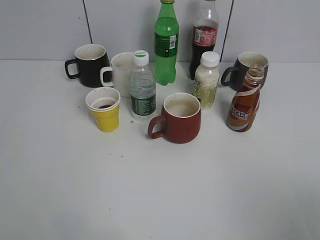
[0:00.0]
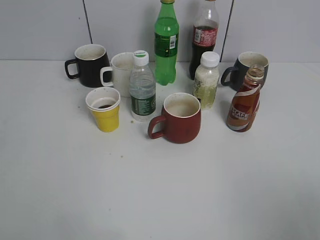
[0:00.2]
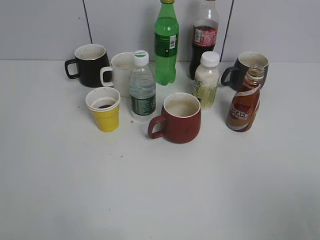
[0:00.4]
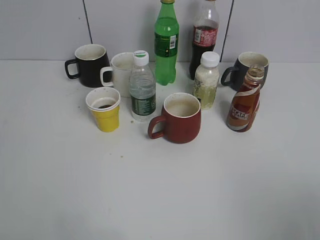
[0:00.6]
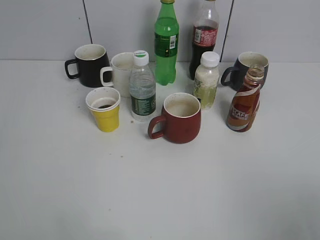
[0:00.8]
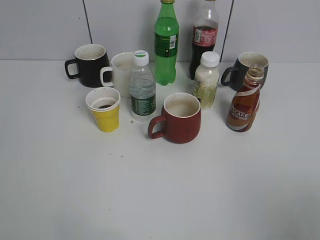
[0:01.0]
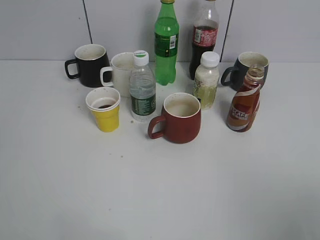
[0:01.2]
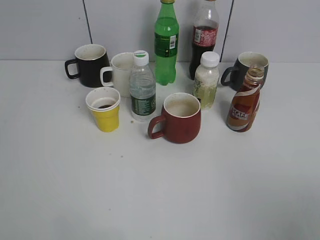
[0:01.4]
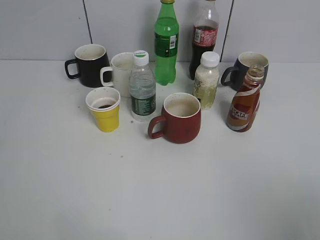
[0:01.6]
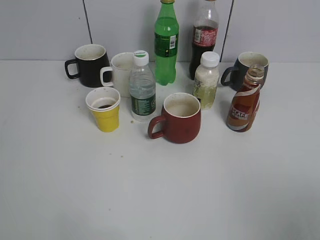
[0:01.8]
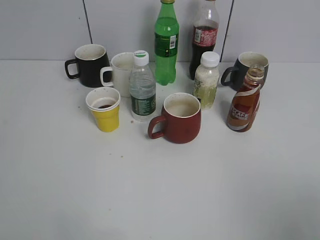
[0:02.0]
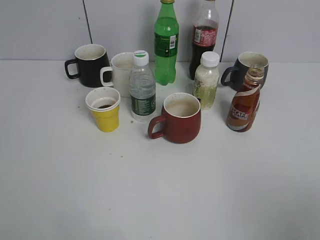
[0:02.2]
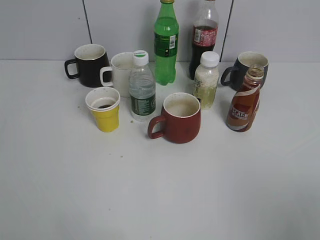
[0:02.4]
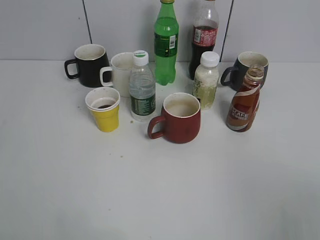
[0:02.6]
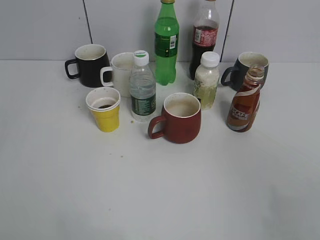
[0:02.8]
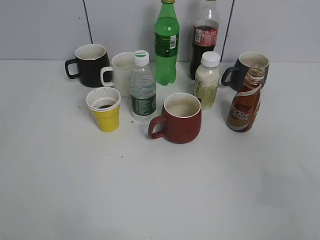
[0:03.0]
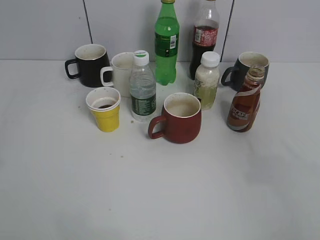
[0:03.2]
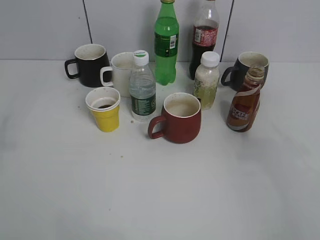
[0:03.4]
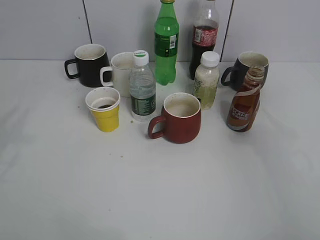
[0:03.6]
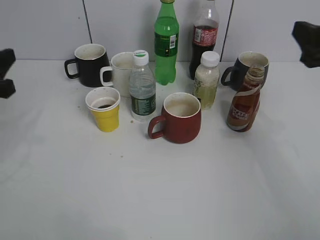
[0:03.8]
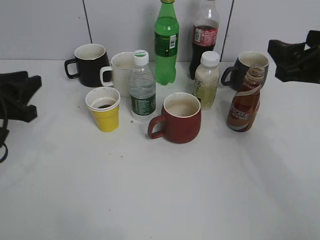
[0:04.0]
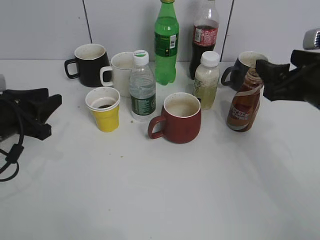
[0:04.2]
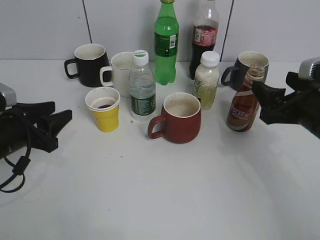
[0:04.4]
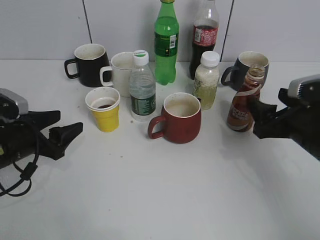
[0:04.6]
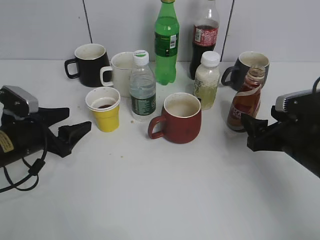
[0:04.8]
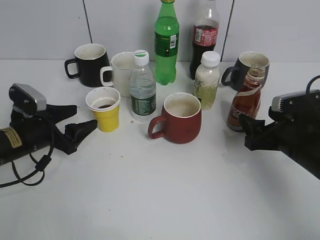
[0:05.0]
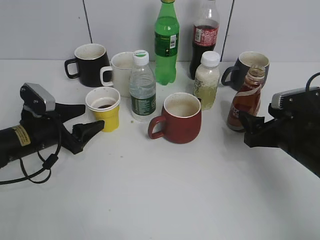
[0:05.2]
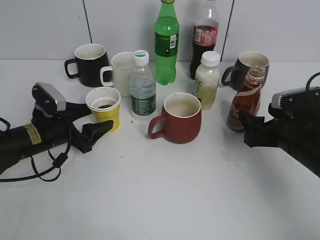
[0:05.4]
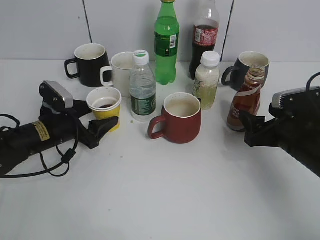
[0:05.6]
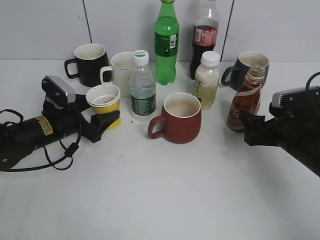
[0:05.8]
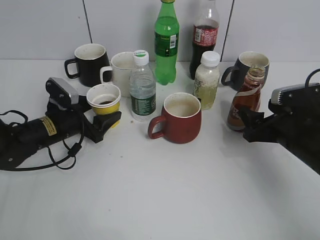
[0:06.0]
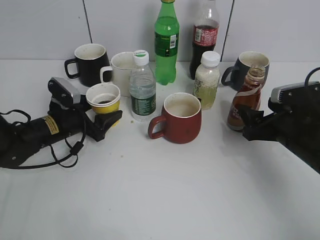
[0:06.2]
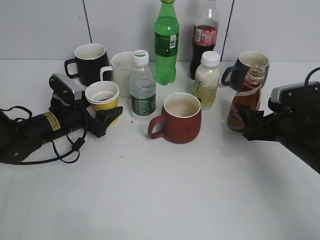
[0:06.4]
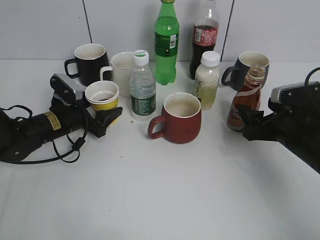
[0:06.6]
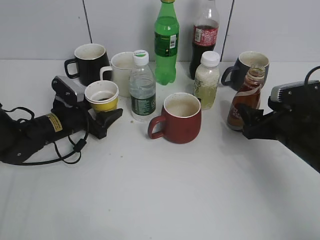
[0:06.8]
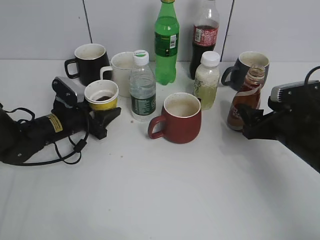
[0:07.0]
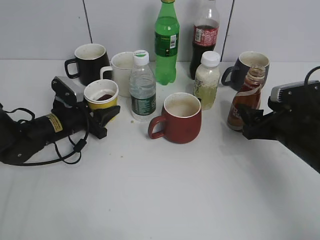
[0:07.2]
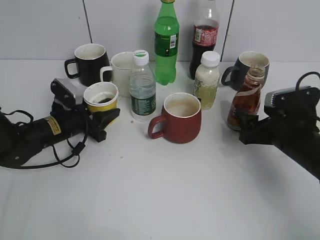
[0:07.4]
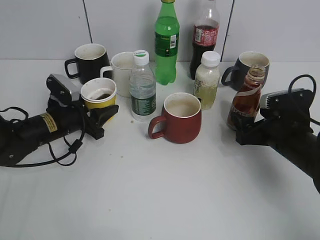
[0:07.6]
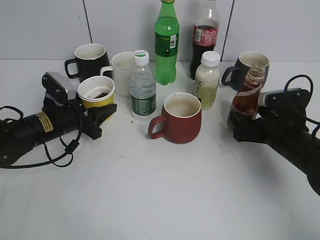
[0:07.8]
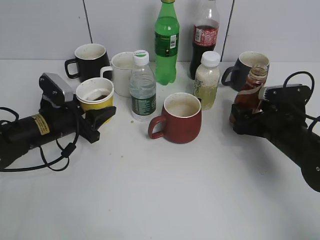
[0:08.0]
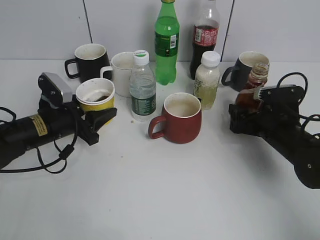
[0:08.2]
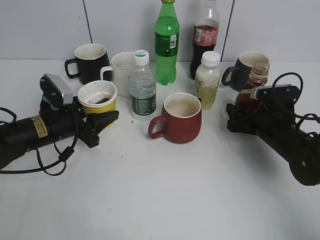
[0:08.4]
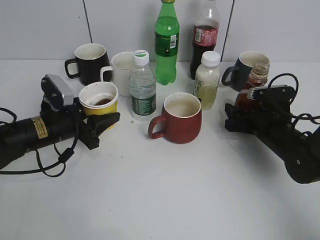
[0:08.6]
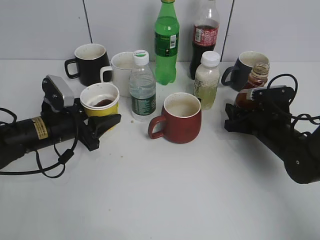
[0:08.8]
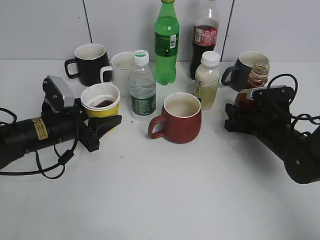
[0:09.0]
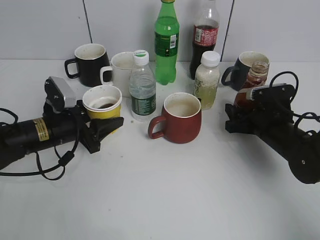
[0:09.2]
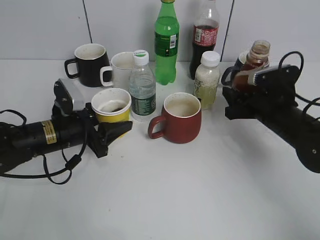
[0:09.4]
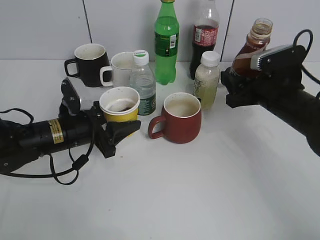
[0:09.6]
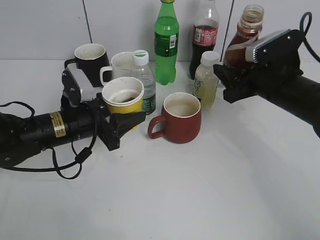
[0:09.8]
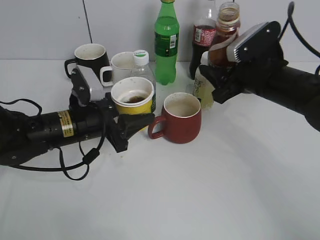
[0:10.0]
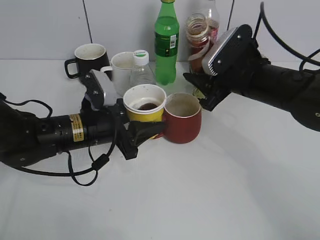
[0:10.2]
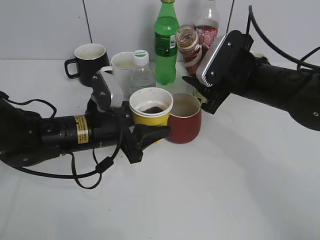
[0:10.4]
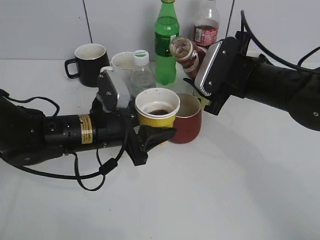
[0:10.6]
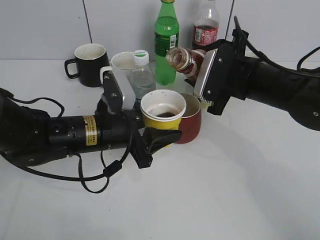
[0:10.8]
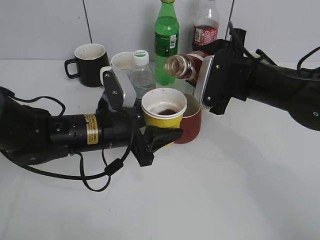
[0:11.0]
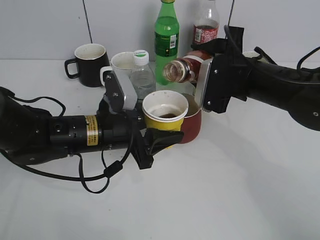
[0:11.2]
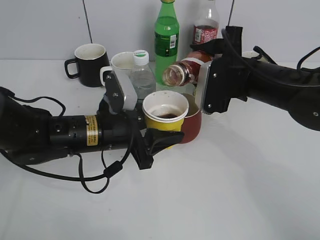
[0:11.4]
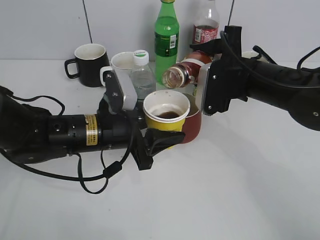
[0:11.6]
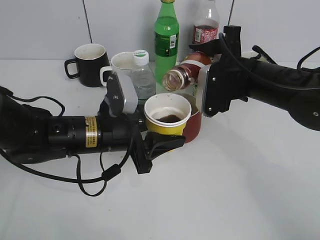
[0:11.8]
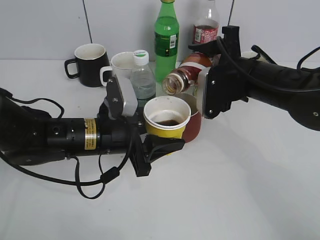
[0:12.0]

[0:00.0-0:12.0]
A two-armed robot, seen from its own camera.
Step, 2.2 to 7.0 s: Grasp the yellow paper cup with left gripper.
Step, 7.2 to 9.0 s: Grasp the bottle with coffee with right gripper.
1.6 to 3.0 s: The right gripper shifts some 10 cm forward.
3.0 to 4.4 s: The left gripper travels downward and forward by approximately 30 cm, and opens up. The right gripper moves forward and downward, roughly 25 cm.
4.4 to 6.0 s: The right gripper is displaced downward by some 5 cm, while the left gripper is displaced forward, downward and to the right by approximately 10 cm, and opens its fingers.
6.0 to 7.6 s: The left gripper closes up.
7.6 to 9.0 s: The right gripper shifts by about 5 cm, and closes its fingers.
9.0 to 10.4 s: The right gripper shifts roughly 15 cm upward and to the left; the left gripper moves to the right, roughly 10 cm.

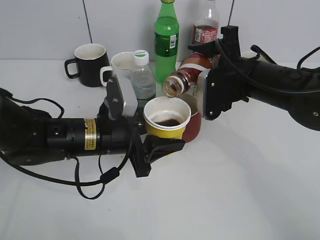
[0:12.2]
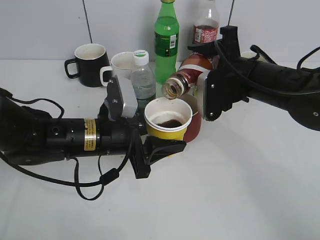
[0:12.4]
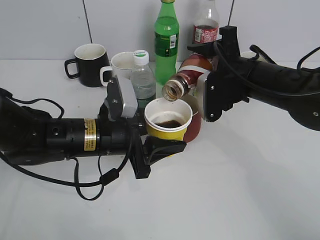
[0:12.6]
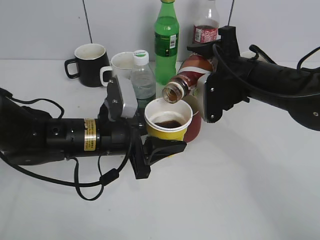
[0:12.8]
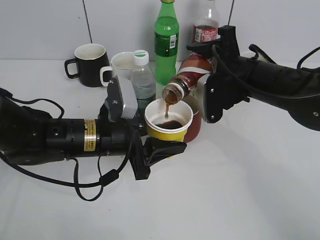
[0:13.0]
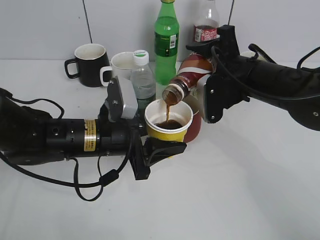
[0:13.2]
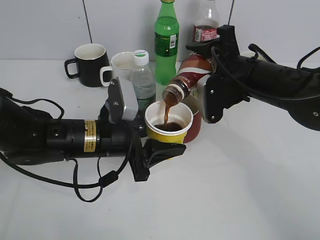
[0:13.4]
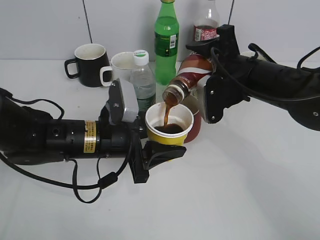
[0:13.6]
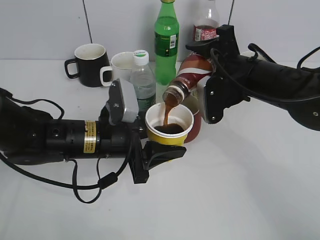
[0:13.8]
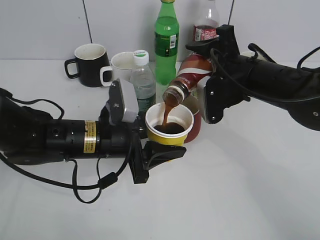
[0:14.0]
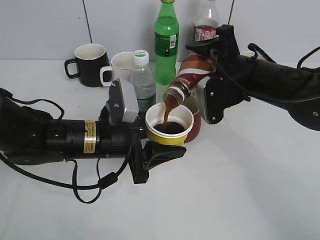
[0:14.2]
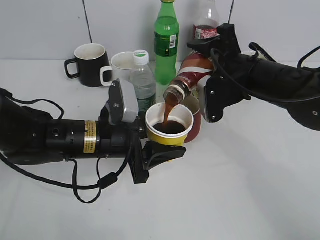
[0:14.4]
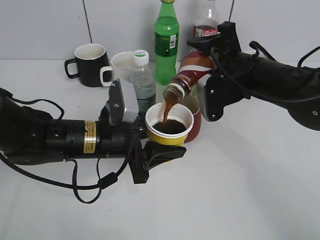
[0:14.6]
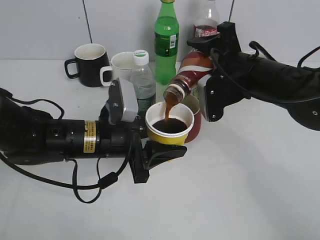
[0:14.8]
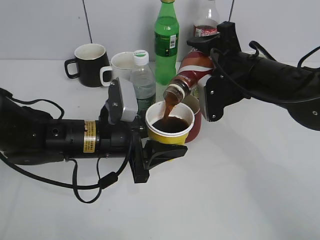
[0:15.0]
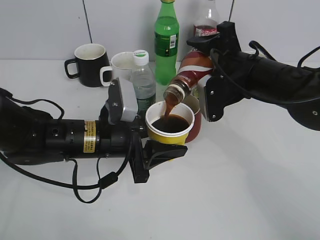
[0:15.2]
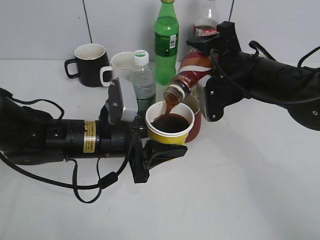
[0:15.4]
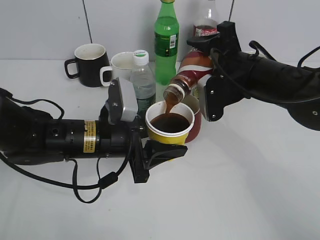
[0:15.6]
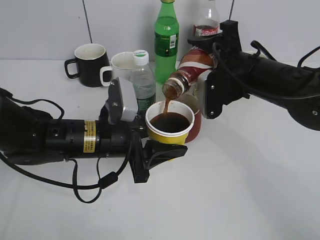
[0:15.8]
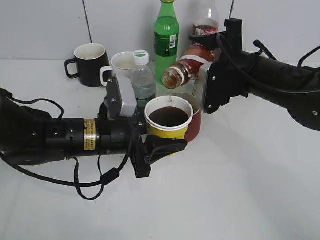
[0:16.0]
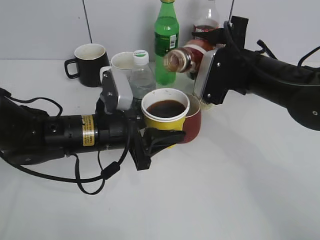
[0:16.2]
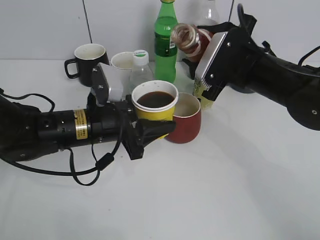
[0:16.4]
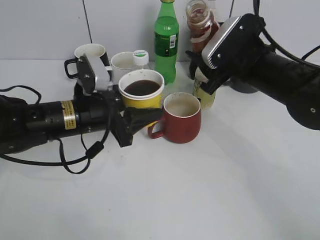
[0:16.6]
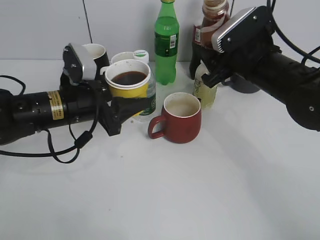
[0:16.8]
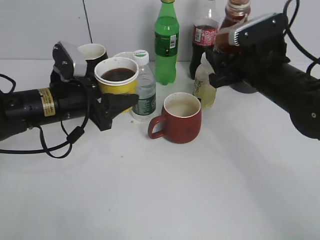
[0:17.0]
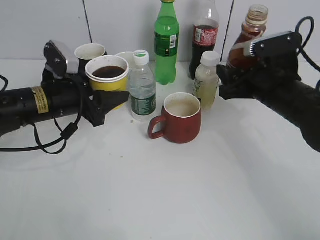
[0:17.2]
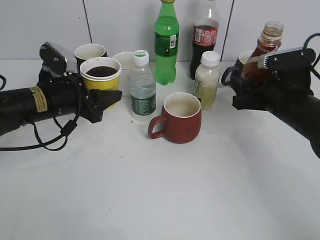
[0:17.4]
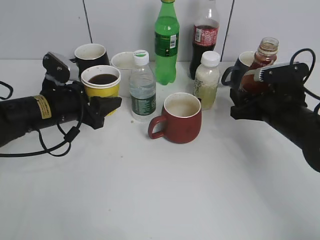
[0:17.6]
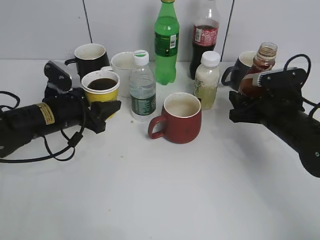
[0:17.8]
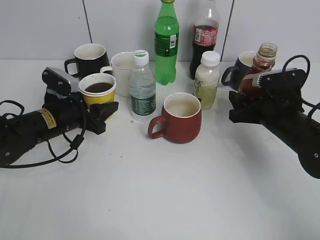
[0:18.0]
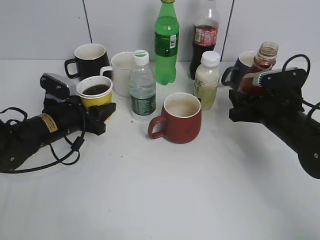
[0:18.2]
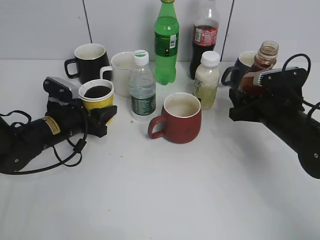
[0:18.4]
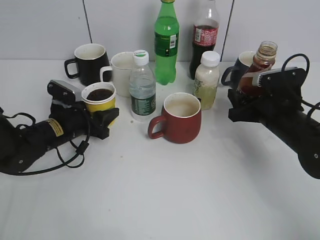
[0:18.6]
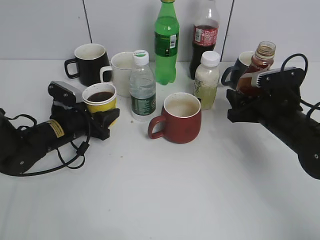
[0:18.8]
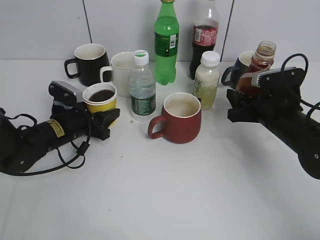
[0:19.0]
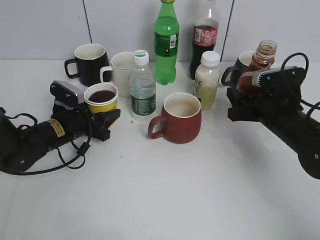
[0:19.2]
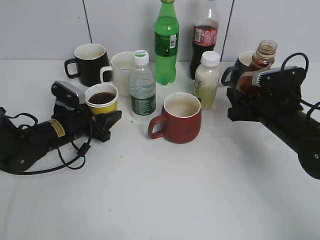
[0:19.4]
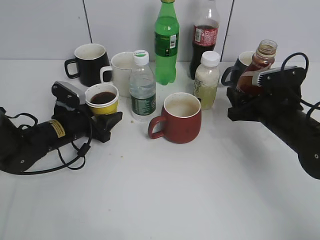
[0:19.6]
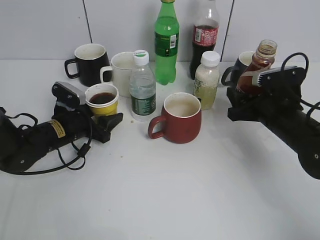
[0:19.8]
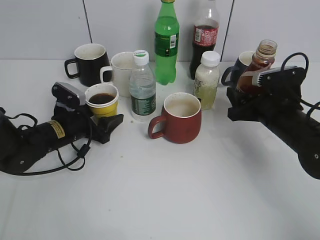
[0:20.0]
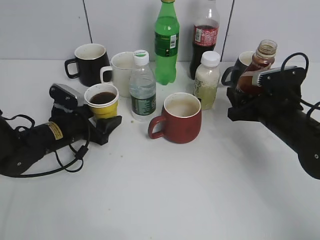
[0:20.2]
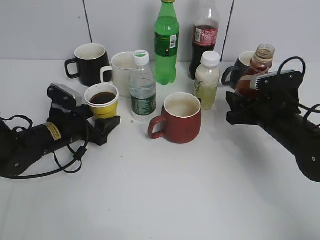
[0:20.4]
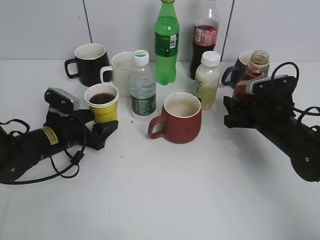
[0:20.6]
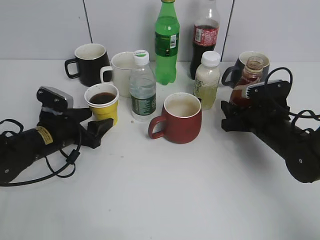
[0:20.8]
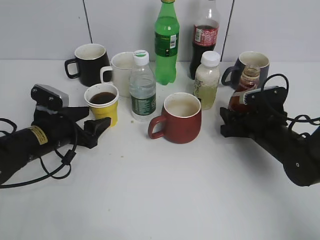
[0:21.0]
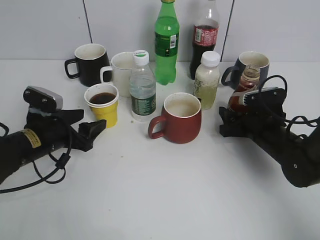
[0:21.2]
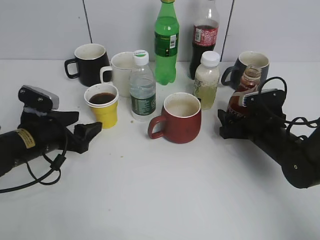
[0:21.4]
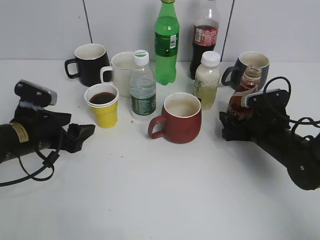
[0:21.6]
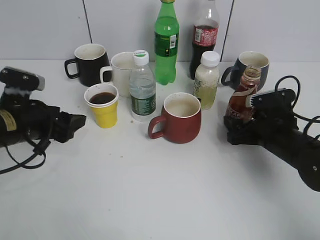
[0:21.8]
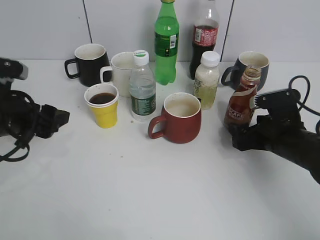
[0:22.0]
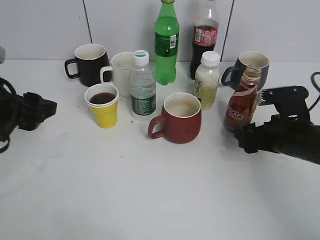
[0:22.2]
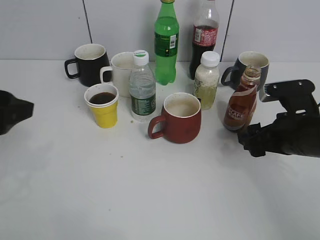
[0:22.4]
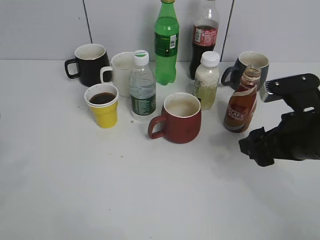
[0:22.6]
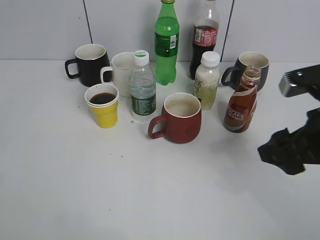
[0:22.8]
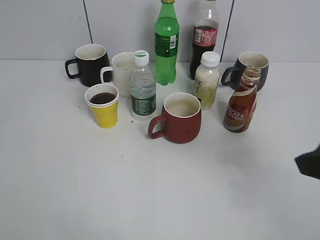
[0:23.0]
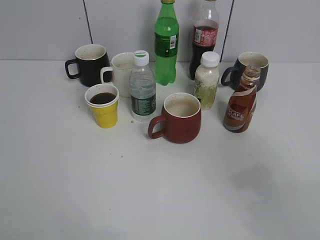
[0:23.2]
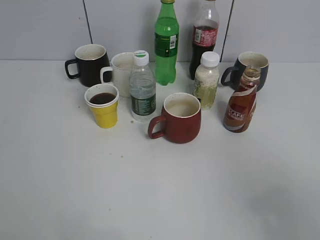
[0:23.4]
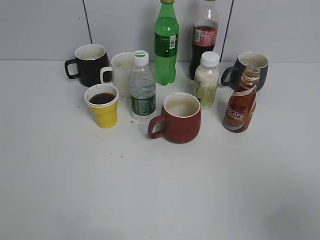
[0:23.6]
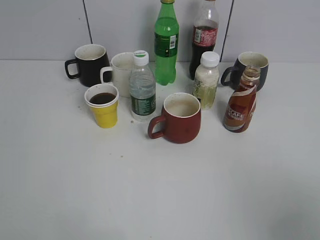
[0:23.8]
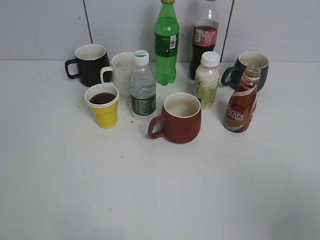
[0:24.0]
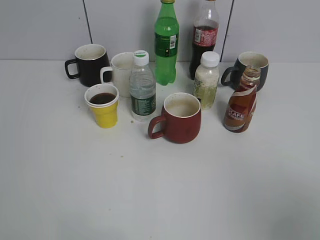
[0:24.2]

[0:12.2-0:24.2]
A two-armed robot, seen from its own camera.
Step, 12.2 to 16.6 s: Pour the coffee from bottle to cup with right gripper.
Step, 16.8 to 21.8 s: Place the coffee bottle on the table with right gripper.
12.2 to 13.8 s: The grippers make only small movements.
13.8 to 15.2 s: Both grippers stay put.
15.2 to 16.6 s: The left gripper changes place by approximately 5 cm.
16.6 to 18.2 s: The left gripper travels to the left and downward by roughly 10 cm, while the right gripper goes roughly 10 cm downward and to the right.
18.2 to 19.8 s: The left gripper opens its fingers.
19.8 to 21.2 s: The left gripper shifts some 5 cm backward. Meanwhile the right gripper heads downward, covering roughly 5 cm.
21.2 to 22.6 s: The left gripper goes approximately 25 cm upward and backward. The right gripper is displaced upward and backward by approximately 15 cm, and opens.
22.6 to 24.2 s: The left gripper is displaced backward by some 10 cm. The right gripper goes some 25 cm backward, upward and to the right.
